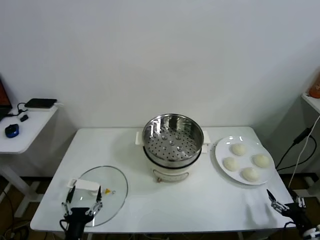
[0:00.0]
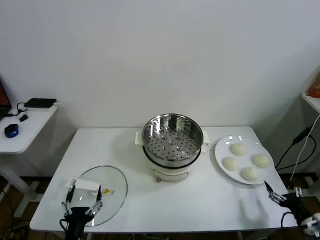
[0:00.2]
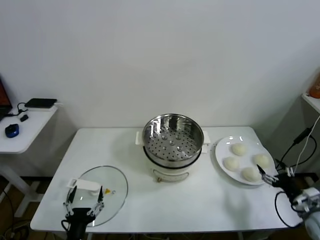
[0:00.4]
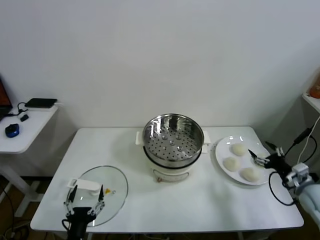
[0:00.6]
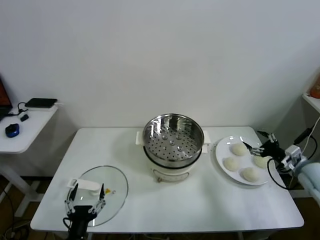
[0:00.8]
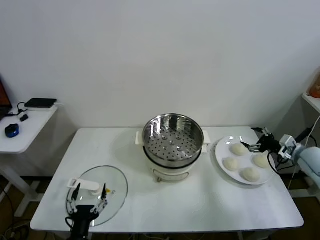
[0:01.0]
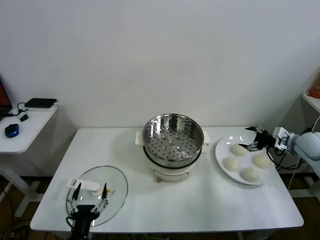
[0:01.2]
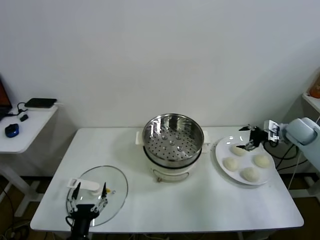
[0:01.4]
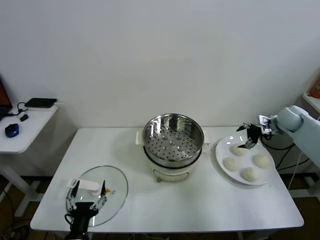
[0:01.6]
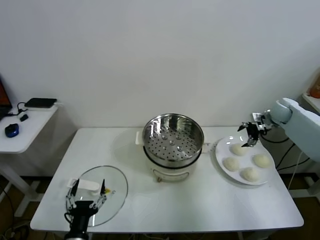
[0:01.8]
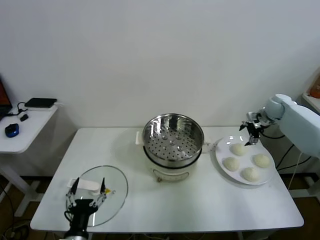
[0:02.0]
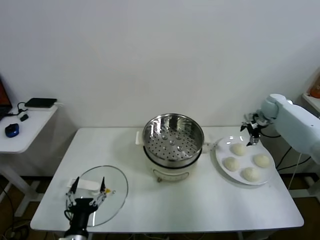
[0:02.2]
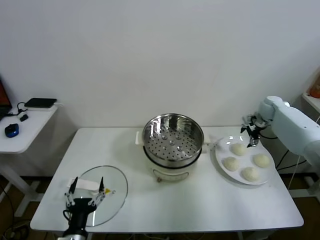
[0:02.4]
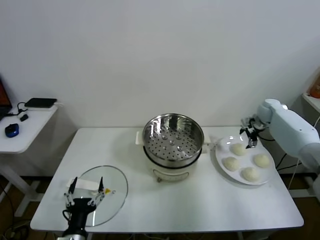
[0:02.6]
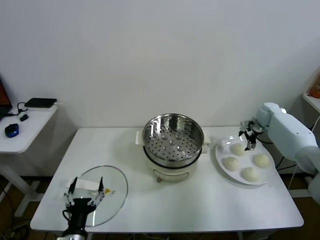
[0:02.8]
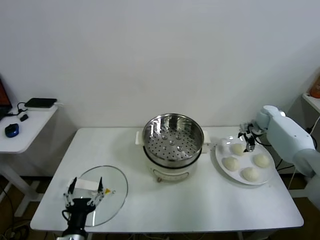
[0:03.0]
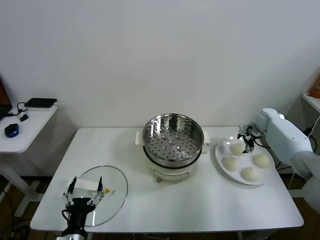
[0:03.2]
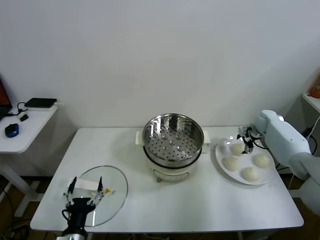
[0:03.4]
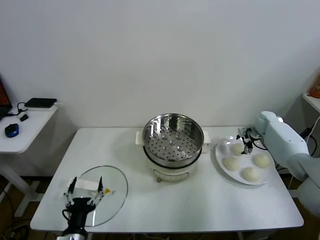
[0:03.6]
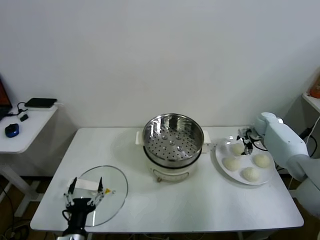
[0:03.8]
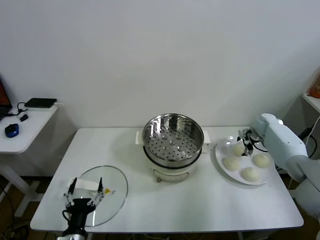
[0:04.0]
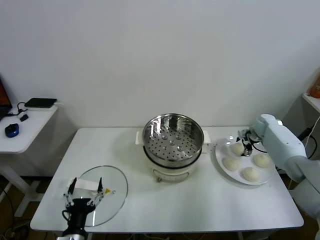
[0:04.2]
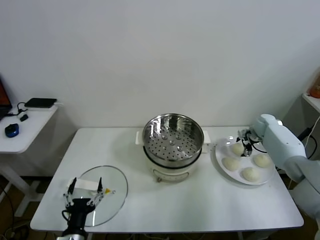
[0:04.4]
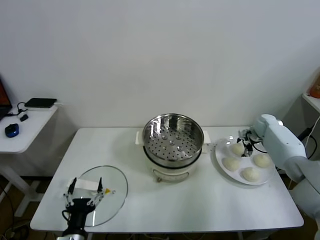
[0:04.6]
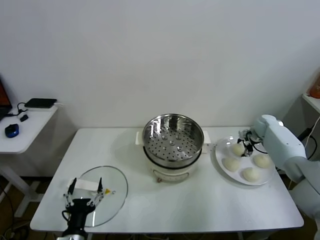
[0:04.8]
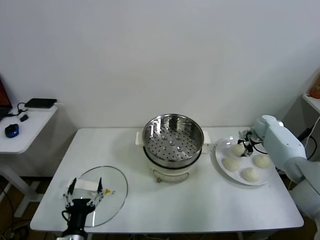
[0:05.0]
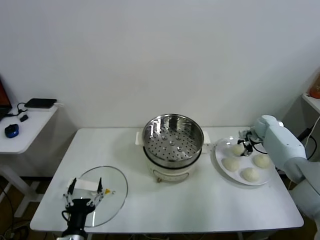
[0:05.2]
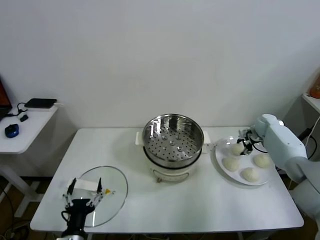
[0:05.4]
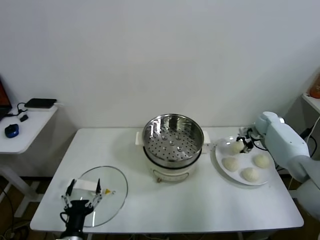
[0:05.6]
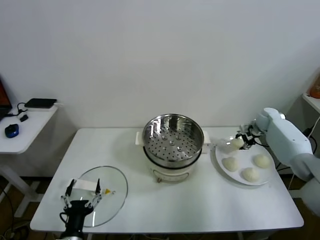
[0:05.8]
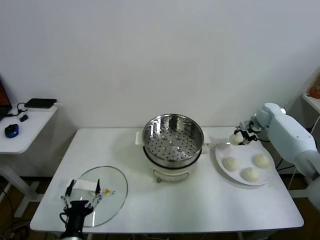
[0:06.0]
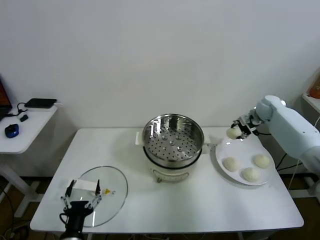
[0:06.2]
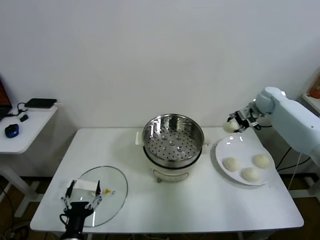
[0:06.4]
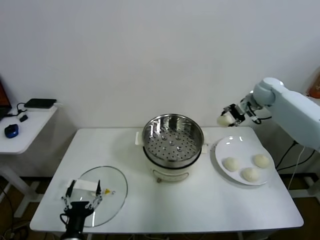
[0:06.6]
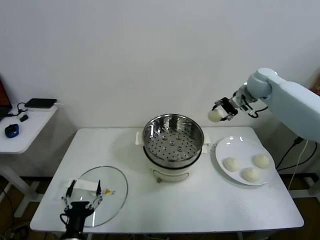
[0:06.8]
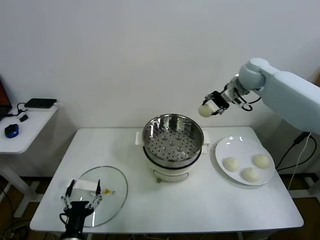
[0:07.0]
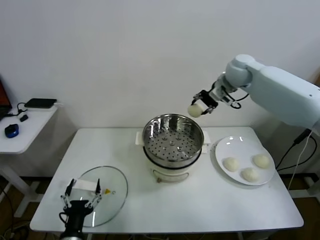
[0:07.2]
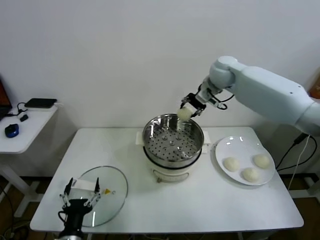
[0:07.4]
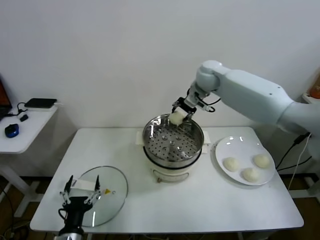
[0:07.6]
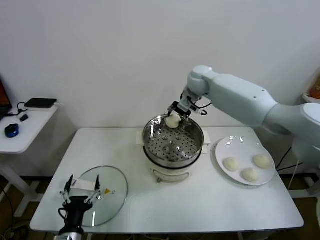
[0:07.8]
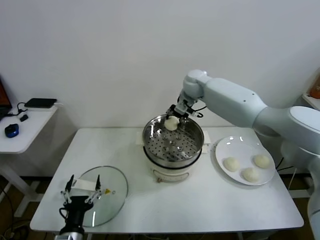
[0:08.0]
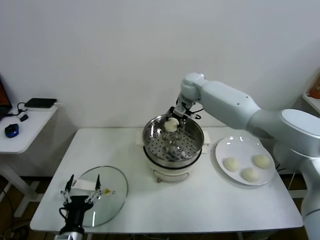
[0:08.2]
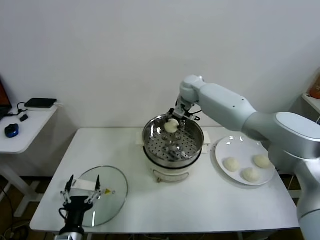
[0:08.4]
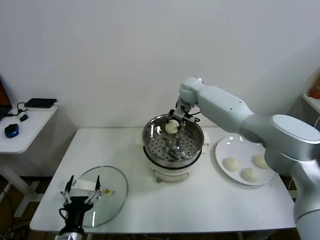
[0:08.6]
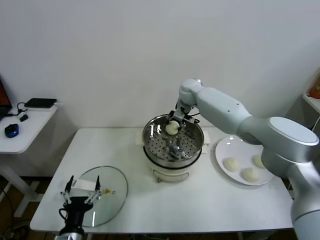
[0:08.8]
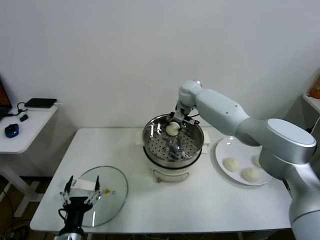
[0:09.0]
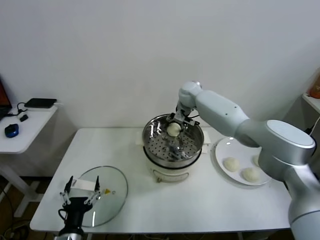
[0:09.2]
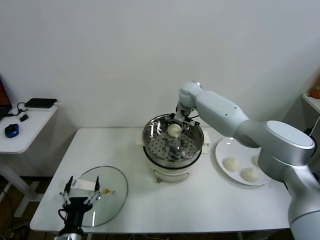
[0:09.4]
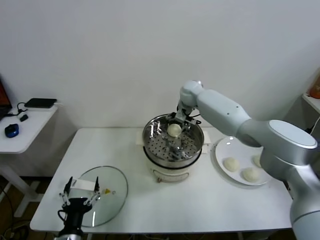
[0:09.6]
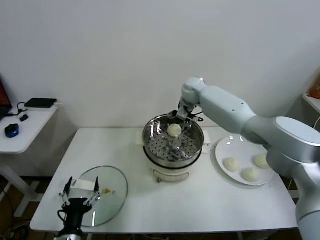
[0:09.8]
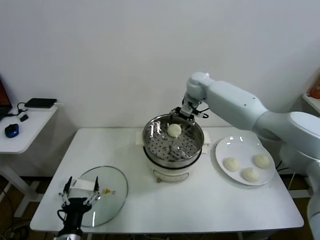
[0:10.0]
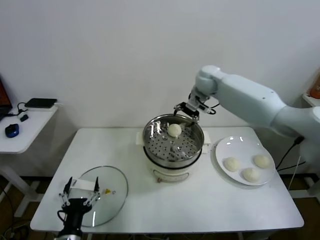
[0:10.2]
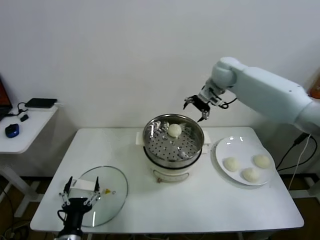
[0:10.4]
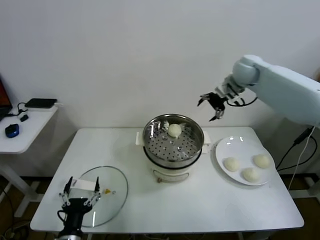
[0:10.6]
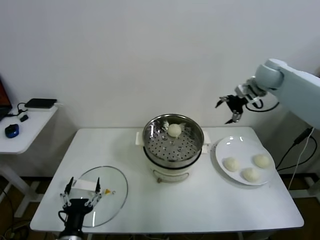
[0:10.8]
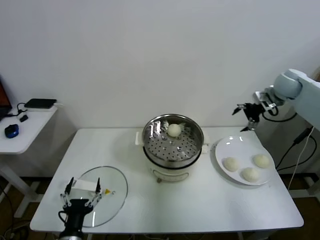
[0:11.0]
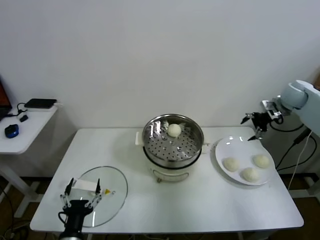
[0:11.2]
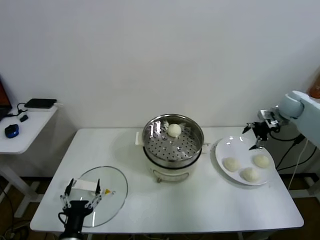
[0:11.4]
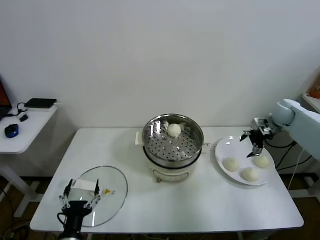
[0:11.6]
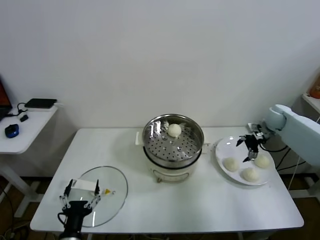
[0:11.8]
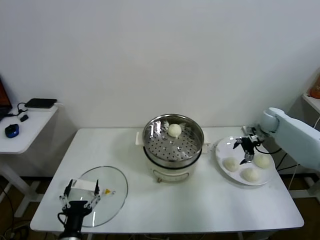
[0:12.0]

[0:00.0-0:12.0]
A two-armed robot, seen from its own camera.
Task of the whole recording: take steamed baozi put them in steamer.
Step, 0:00.0 to 0:05.0: Grasp the baozi in the plate with right gripper.
Step, 0:05.2 to 0:09.4: Place the baozi on the steamer with right gripper.
0:01.6 to 0:03.0: The right gripper shifts some 5 cm downward.
0:03.0 to 0:04.4: The grippers make only small movements.
0:04.4 to 0:06.0: The right gripper heads upward, covering about 10 cm, and closes up.
0:06.0 to 0:07.6: The right gripper travels to the left and upward by some 35 cm.
0:07.6 to 0:09.0: The right gripper is displaced downward by roughly 10 cm.
0:09.0 to 0:10.4: The right gripper heads to the right and upward, covering some 15 cm, and opens.
0:10.4 to 0:12.0: The right gripper is displaced to the right and downward by approximately 30 cm.

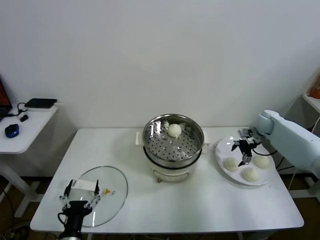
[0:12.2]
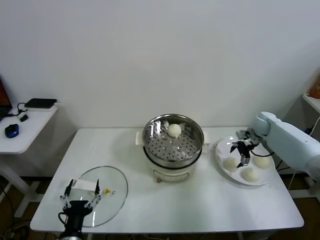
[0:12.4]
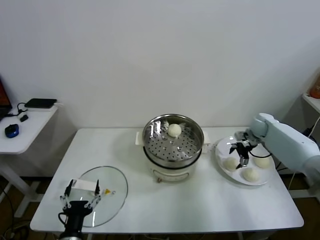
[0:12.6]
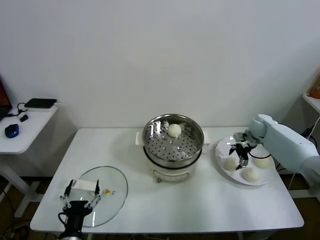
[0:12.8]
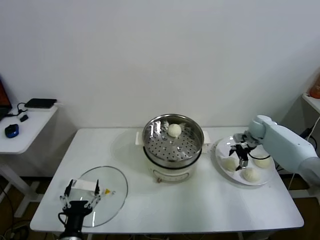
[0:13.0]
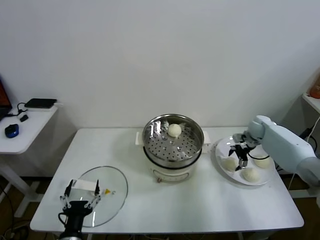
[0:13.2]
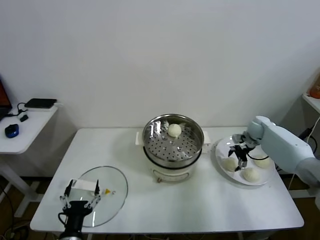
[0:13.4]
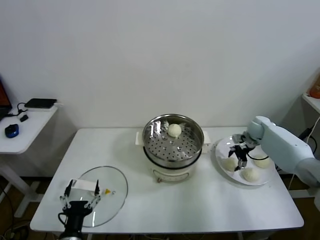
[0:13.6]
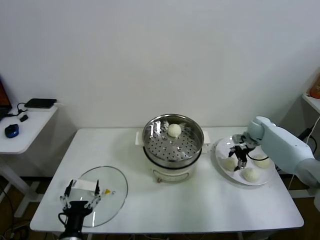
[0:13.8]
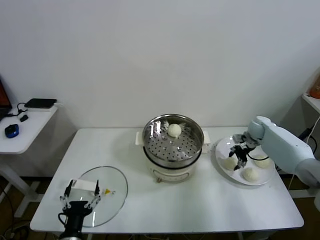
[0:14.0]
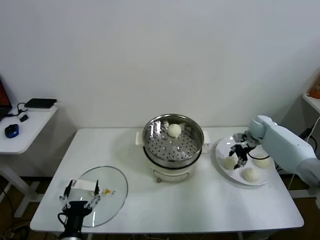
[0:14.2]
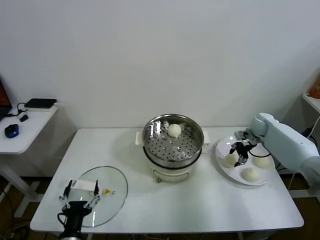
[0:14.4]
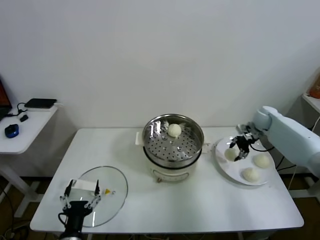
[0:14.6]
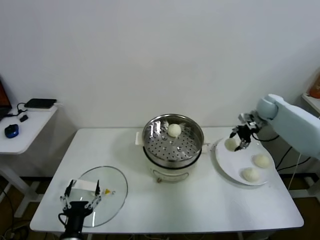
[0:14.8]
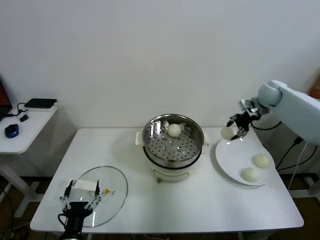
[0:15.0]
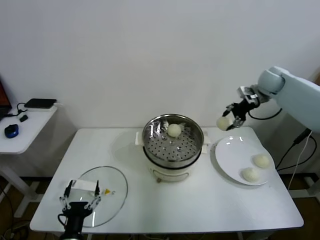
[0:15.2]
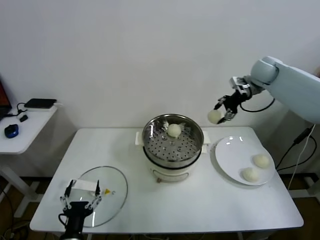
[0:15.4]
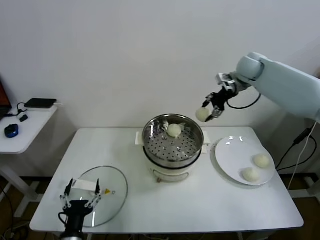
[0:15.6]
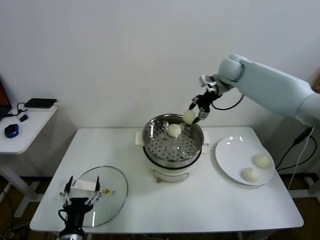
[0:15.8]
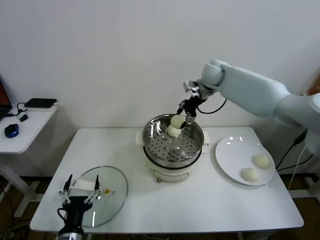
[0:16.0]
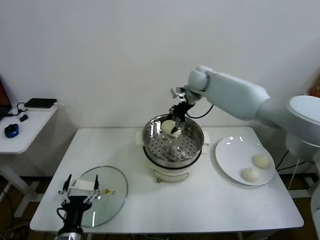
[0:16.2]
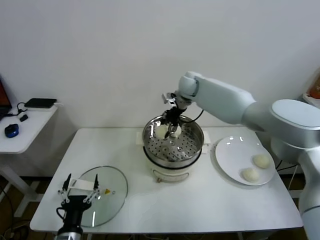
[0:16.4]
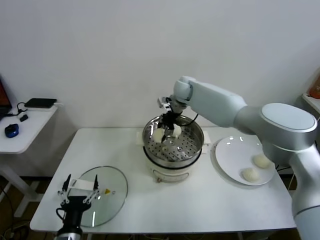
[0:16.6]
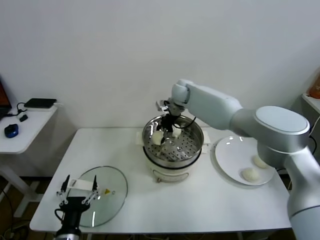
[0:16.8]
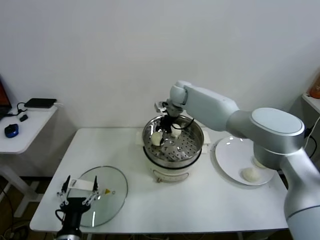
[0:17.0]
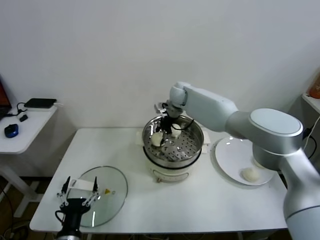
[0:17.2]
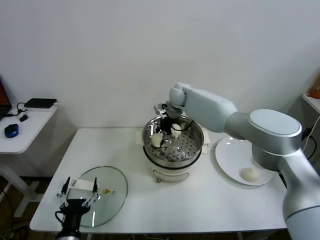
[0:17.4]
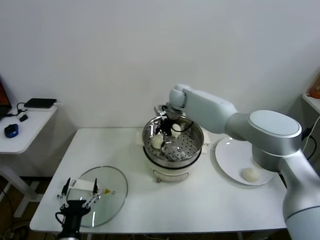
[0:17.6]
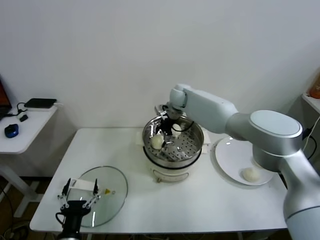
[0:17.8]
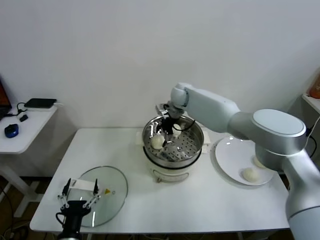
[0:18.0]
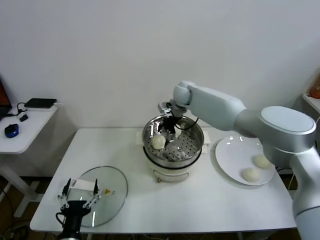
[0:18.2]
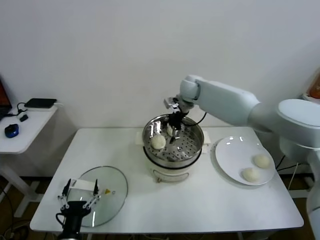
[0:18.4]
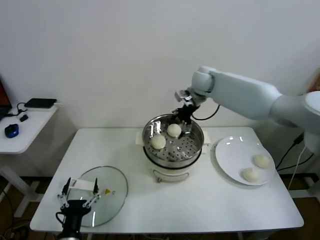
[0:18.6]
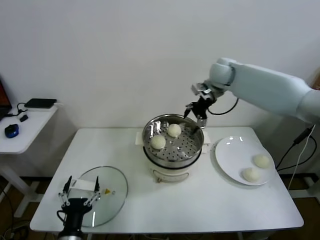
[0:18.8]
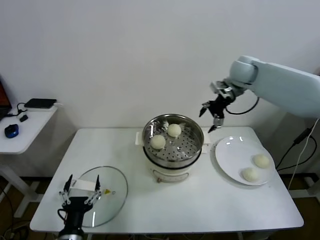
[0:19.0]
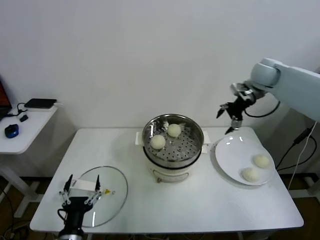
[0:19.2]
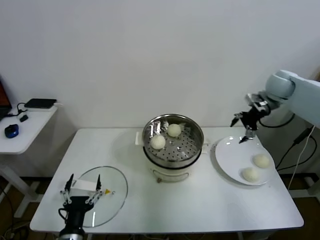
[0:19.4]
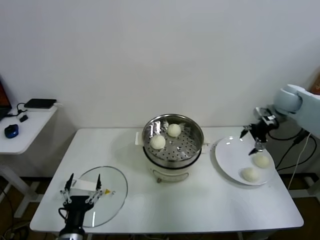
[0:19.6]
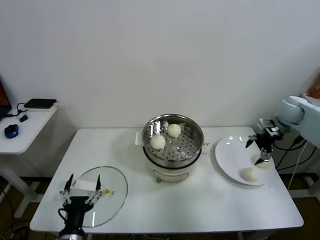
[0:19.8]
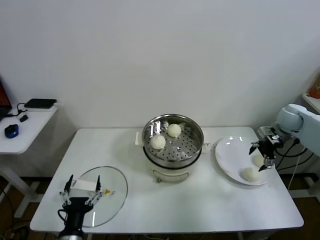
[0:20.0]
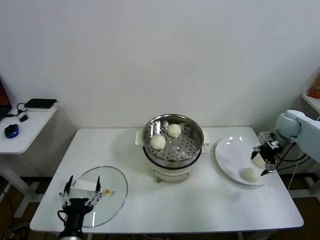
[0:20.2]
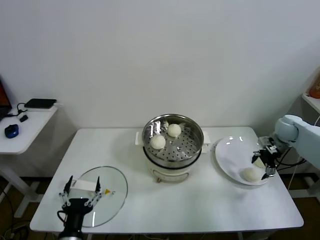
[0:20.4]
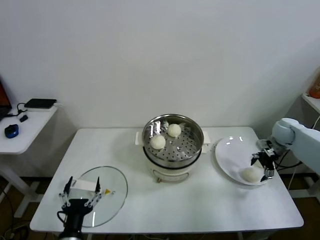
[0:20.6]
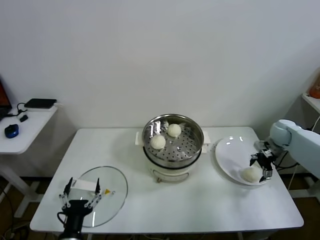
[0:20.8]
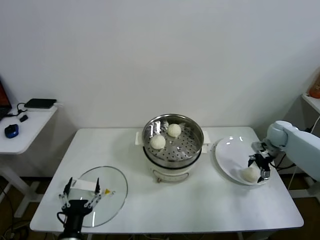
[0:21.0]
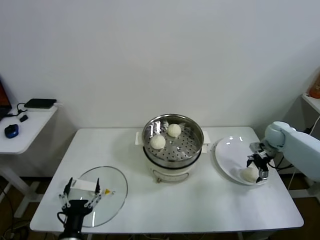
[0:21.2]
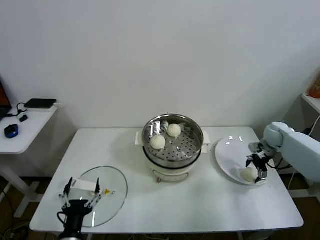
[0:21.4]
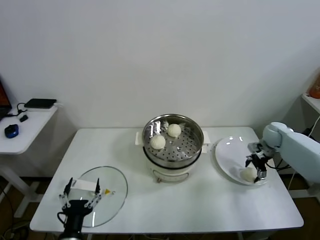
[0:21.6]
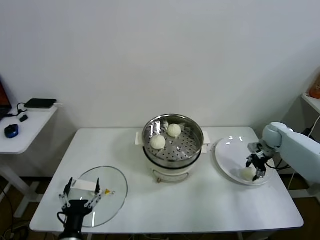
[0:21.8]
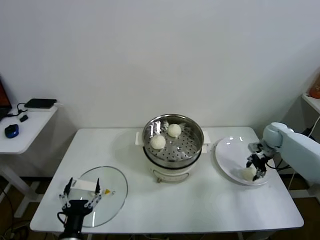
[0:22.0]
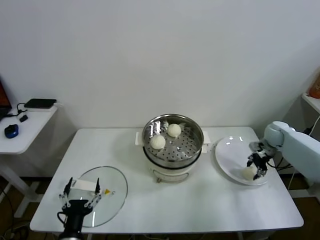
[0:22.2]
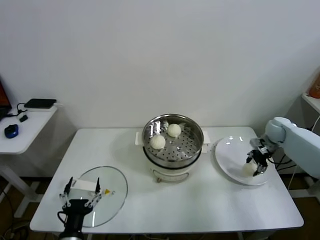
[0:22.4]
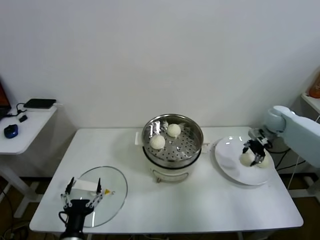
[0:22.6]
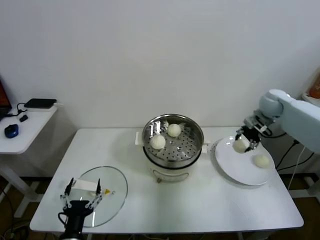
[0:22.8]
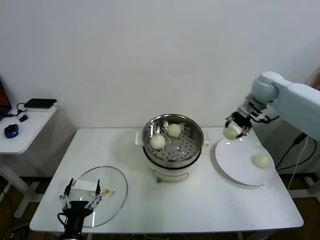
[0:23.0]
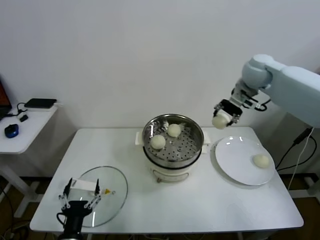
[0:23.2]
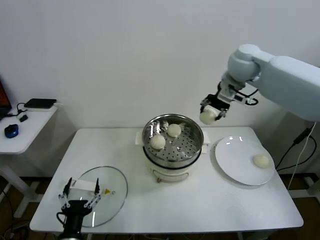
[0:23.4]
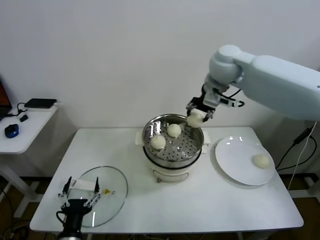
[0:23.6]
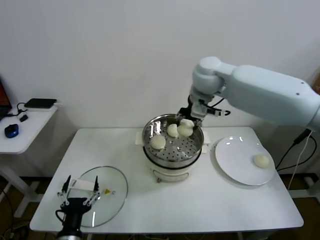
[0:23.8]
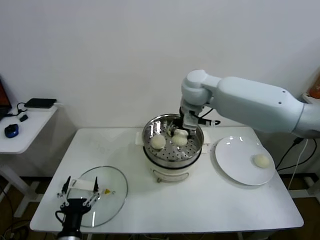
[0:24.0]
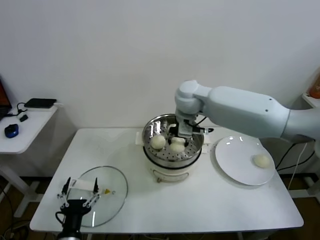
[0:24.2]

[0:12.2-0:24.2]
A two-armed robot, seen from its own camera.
Task of the whole recording: take steamed baozi put them in steamer.
Step, 0:14.2 to 0:17.8: Place the baozi on the steamer with right gripper.
Step, 0:18.0 to 0:22.0: Grasp the baozi in the plate with right gripper.
0:12.2 to 0:13.8: The right gripper closes up.
0:13.8 to 0:15.2: The right gripper goes approximately 25 cm upward.
0:15.2 to 0:16.6: The right gripper shifts about 30 cm to the left.
0:16.6 to 0:18.2: The right gripper opens up.
0:18.2 to 0:19.8: The right gripper is displaced to the right by about 35 cm.
0:19.8 to 0:21.2: The right gripper goes approximately 10 cm downward.
0:21.2 to 0:22.6: The right gripper is displaced upward by some 5 cm, and closes.
0:22.6 to 0:24.2: The right gripper shifts some 35 cm to the left.
